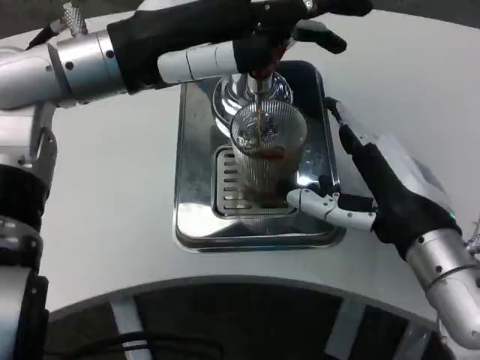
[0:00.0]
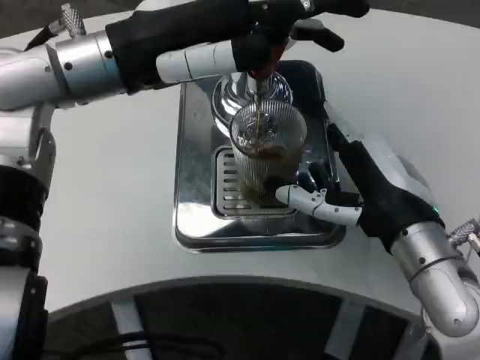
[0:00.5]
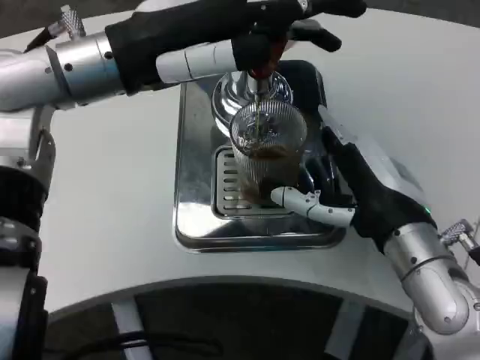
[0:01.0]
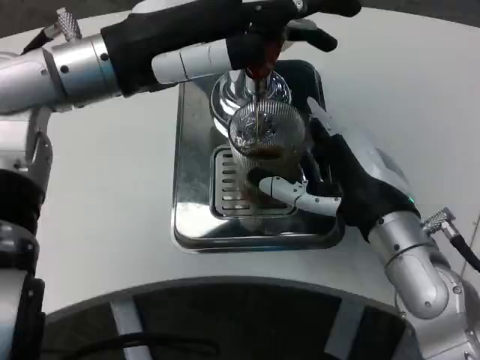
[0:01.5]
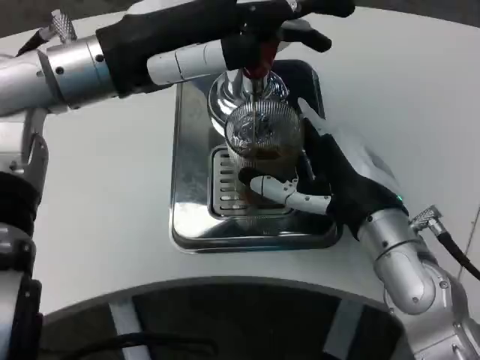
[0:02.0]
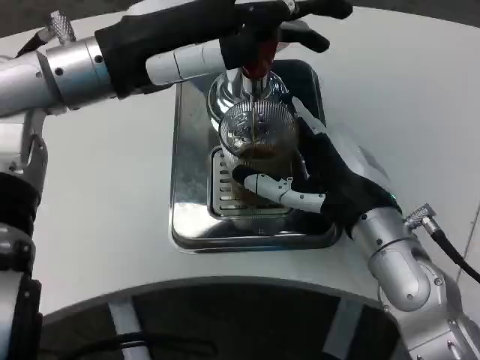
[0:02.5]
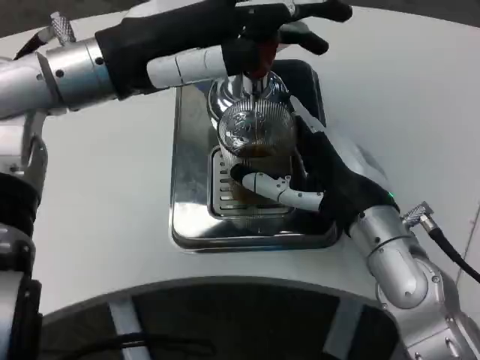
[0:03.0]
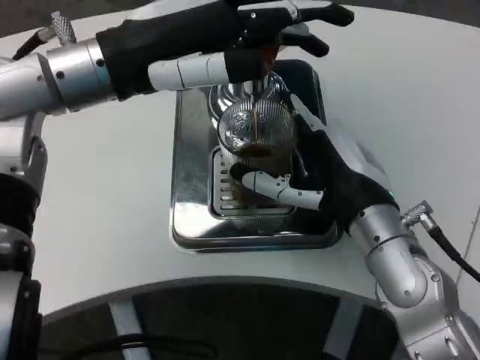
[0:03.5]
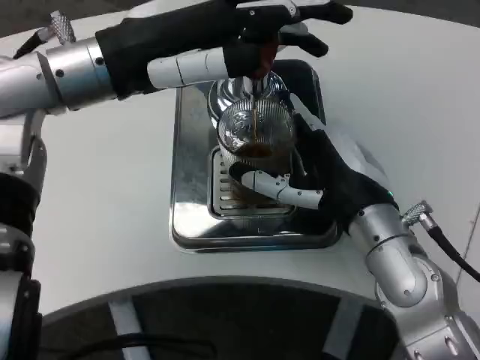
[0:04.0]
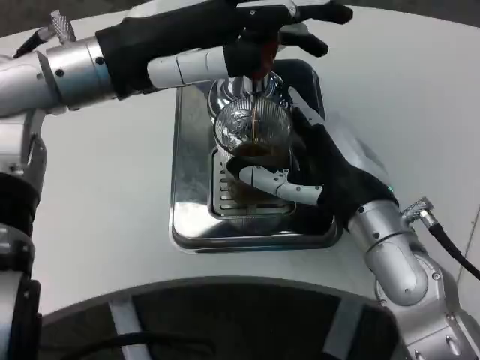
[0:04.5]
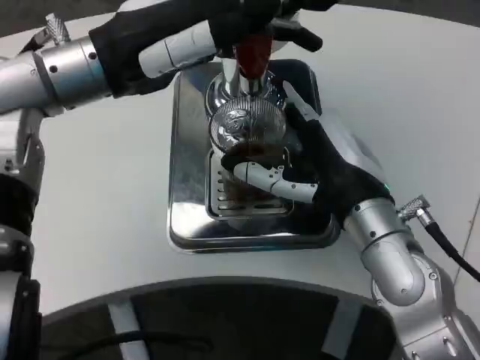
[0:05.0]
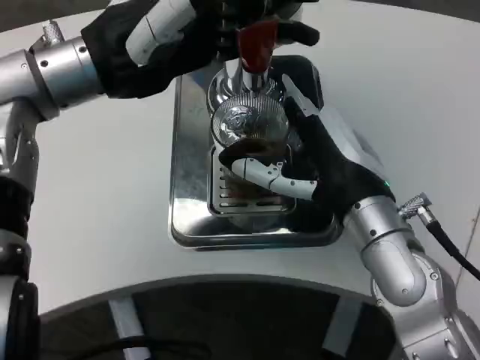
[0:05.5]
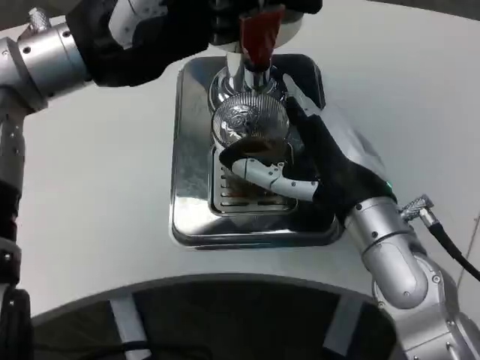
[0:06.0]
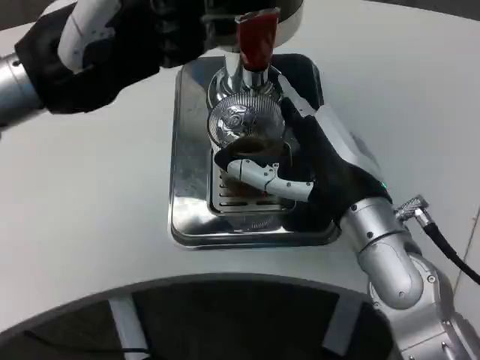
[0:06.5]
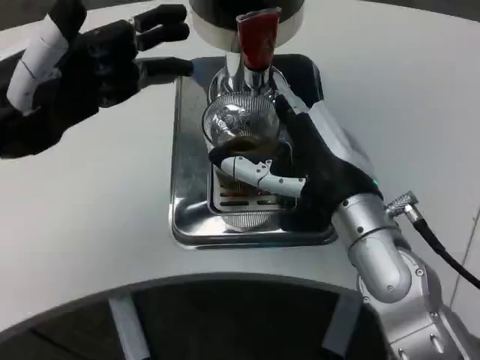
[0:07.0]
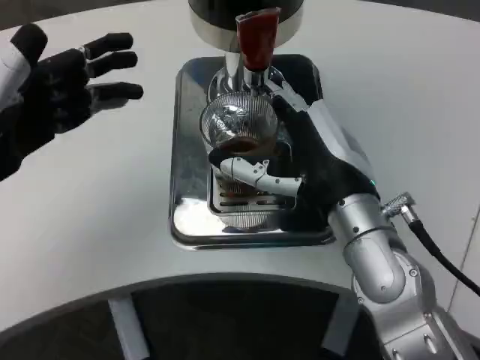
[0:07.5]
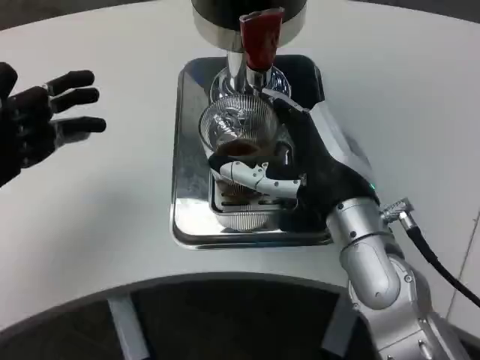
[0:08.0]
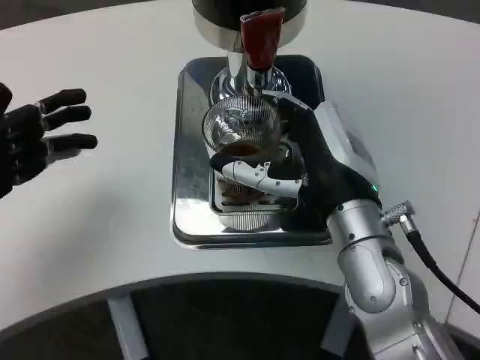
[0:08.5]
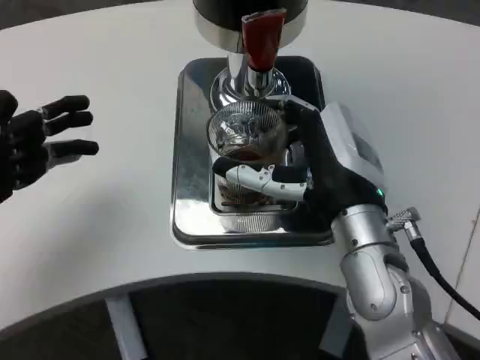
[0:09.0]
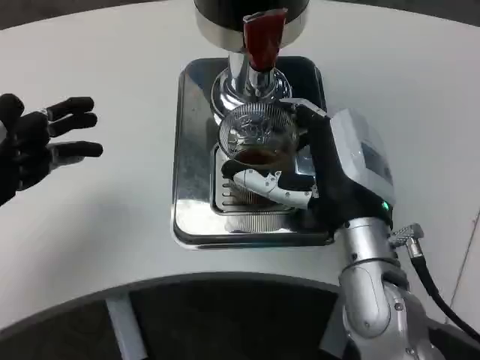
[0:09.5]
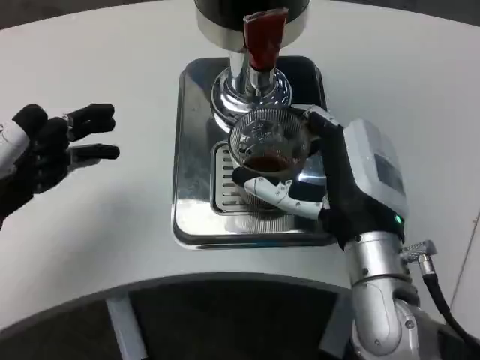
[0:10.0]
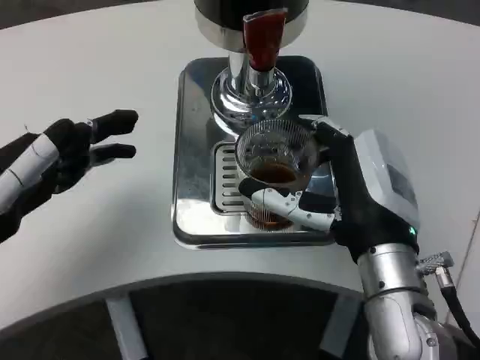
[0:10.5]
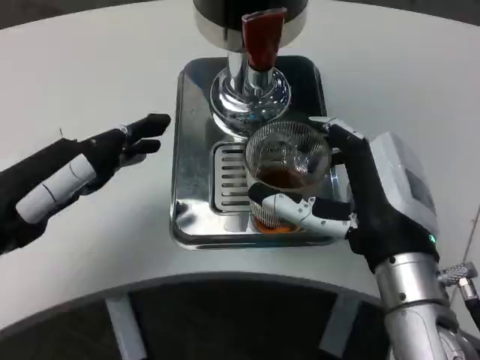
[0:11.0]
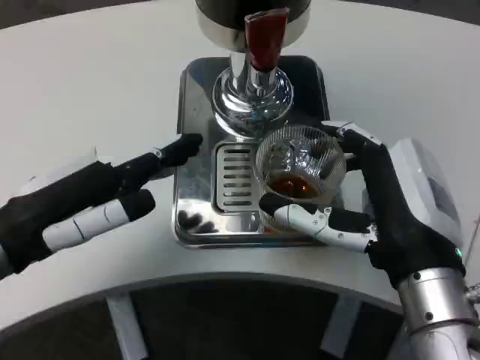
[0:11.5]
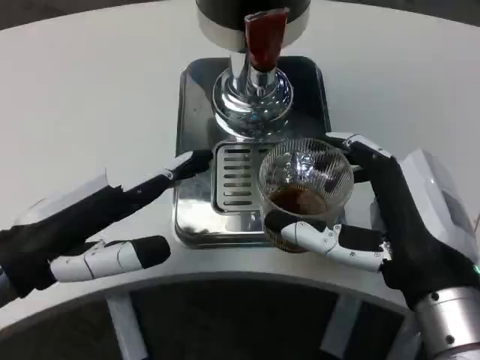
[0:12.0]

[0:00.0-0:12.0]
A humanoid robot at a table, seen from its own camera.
Task of the whole recording: Grasp the cup under the faucet to collect the drink, then remove the cup.
0:02.0 to 0:04.0: Both hands stay about where they are.
0:06.0 to 0:08.0: The left hand moves to the left, downward and backward, about 20 cm.
0:10.0 to 0:12.0: The right hand is displaced backward by some 10 cm, while the left hand is displaced to the right by approximately 5 cm.

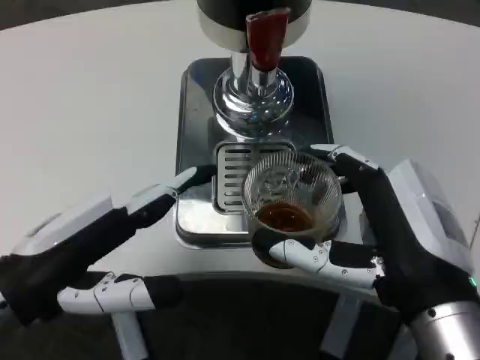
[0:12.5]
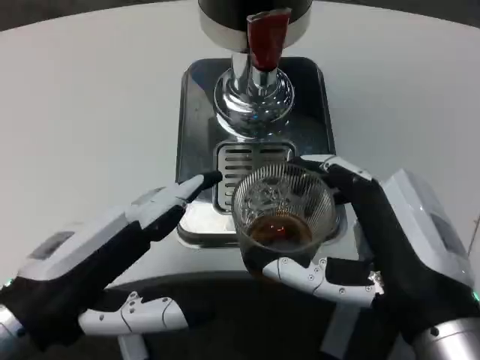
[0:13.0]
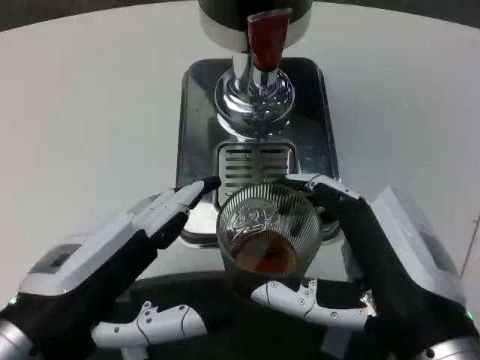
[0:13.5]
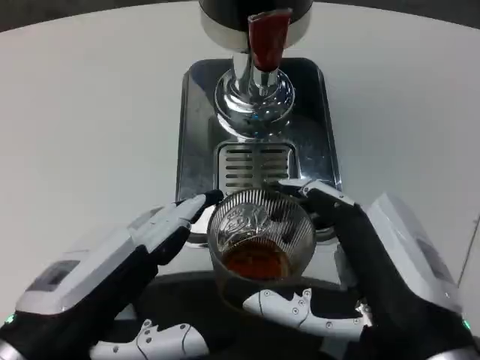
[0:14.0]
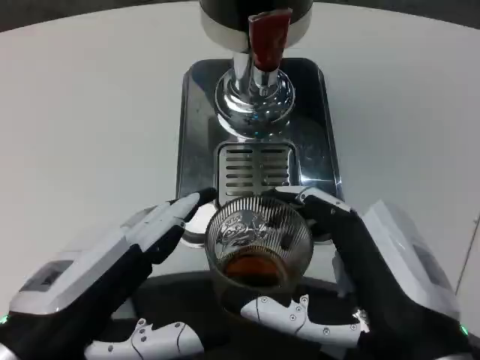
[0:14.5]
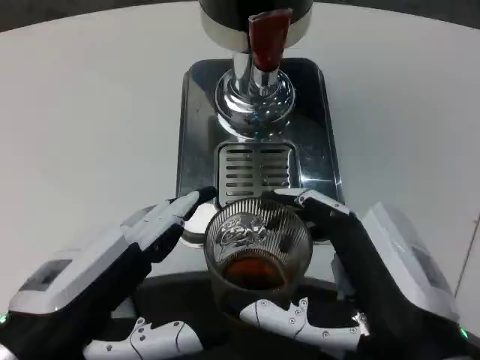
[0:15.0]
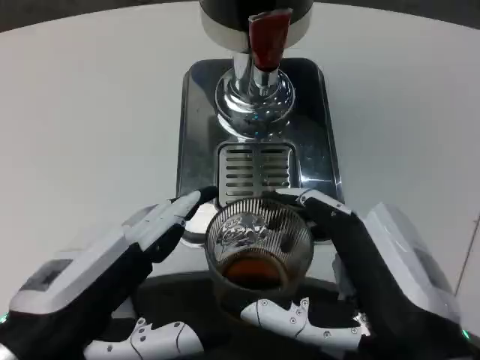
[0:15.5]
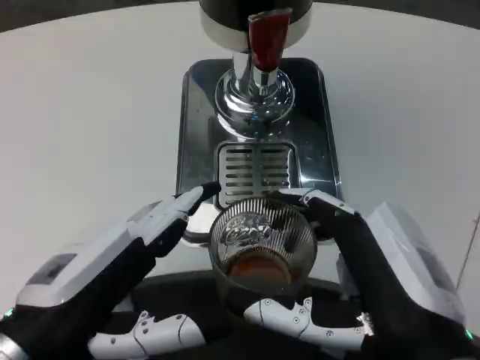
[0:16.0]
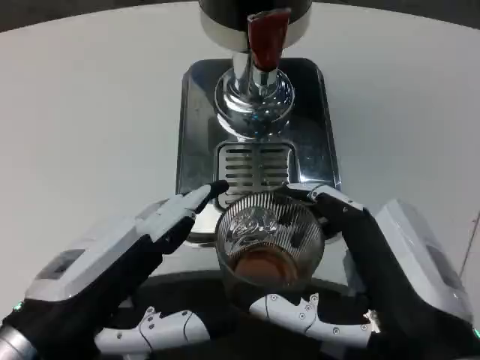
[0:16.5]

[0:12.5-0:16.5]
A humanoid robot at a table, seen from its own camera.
Task of the whole recording: Grasp the cup under the faucet to collect the drink, then remove the cup.
0:12.5 to 0:14.5: The left hand moves backward, roughly 5 cm.
0:14.5 to 0:16.5: Neither hand changes place.

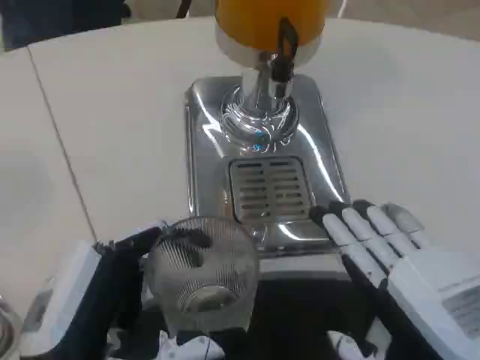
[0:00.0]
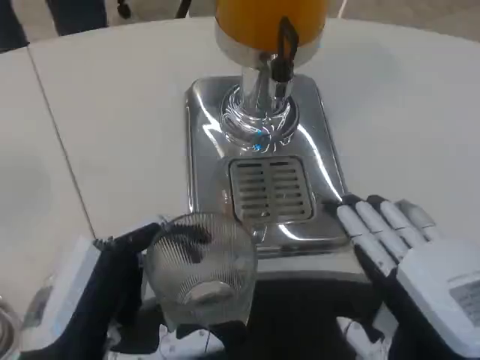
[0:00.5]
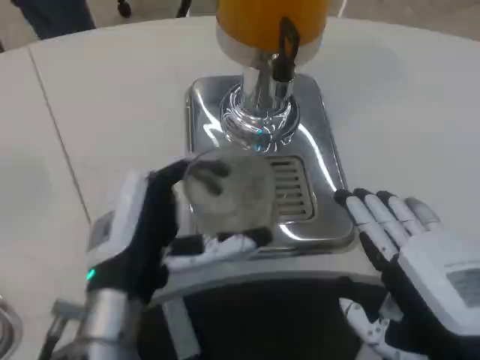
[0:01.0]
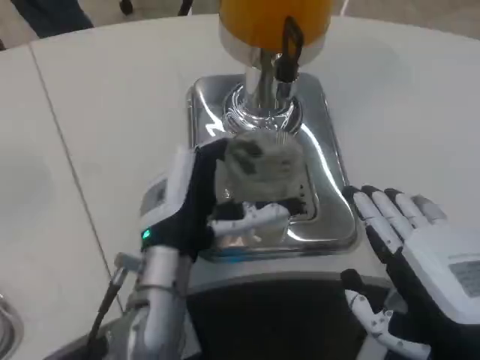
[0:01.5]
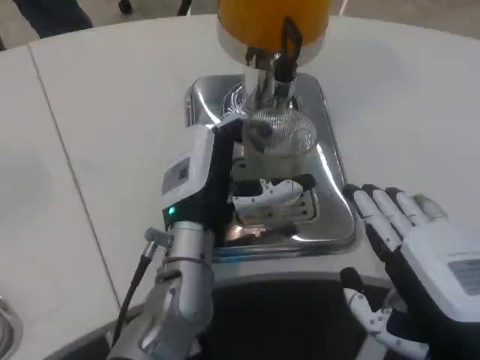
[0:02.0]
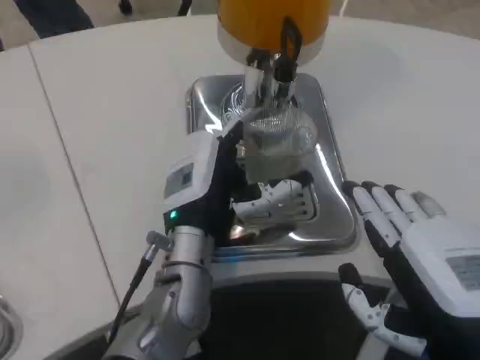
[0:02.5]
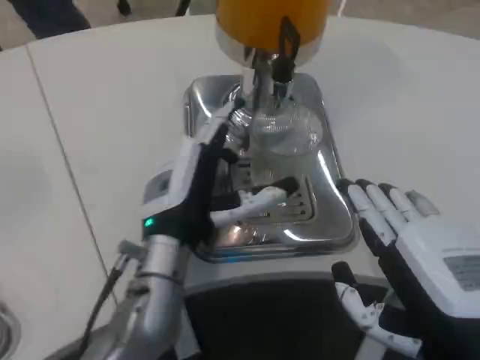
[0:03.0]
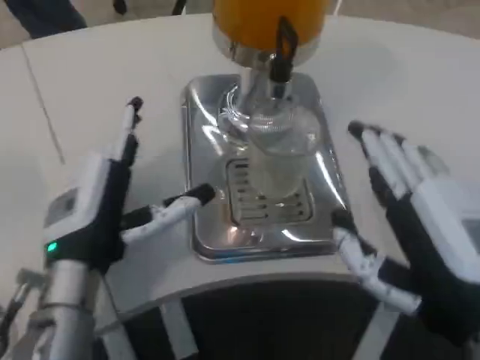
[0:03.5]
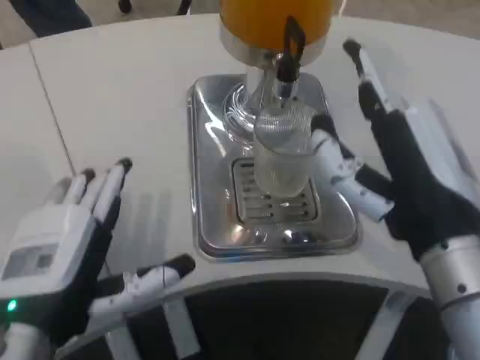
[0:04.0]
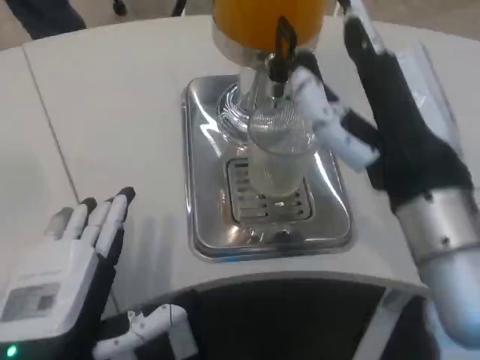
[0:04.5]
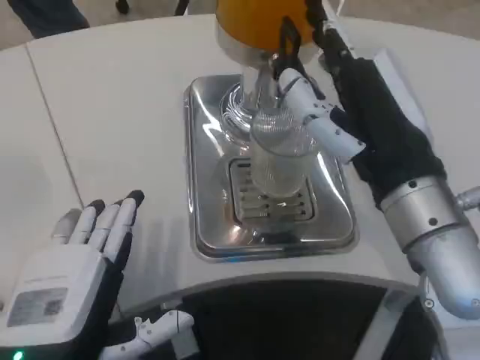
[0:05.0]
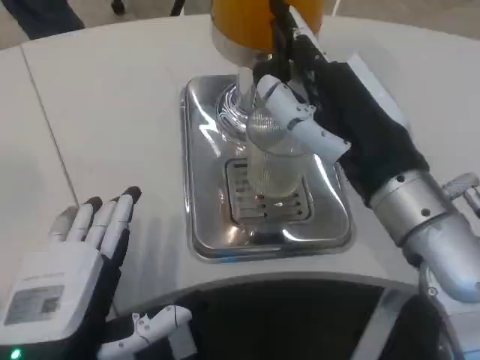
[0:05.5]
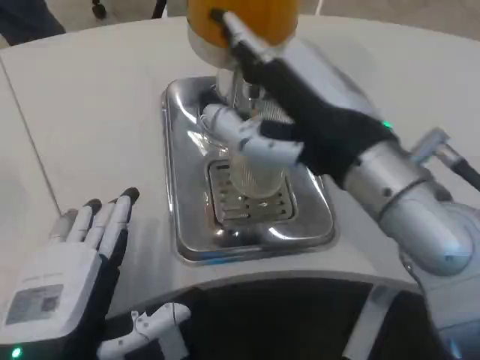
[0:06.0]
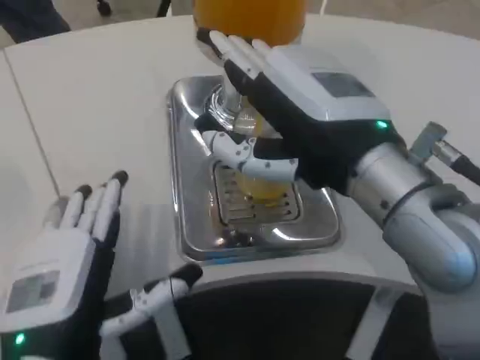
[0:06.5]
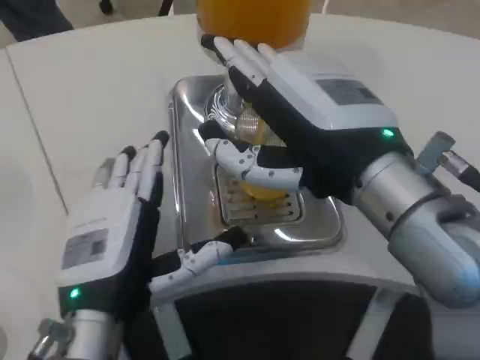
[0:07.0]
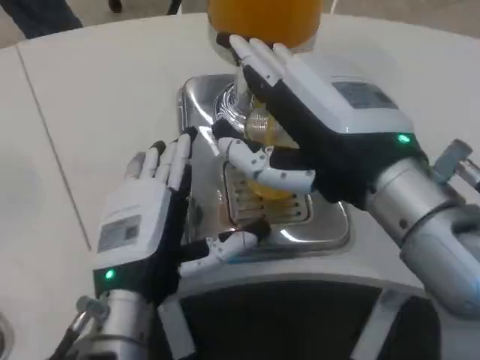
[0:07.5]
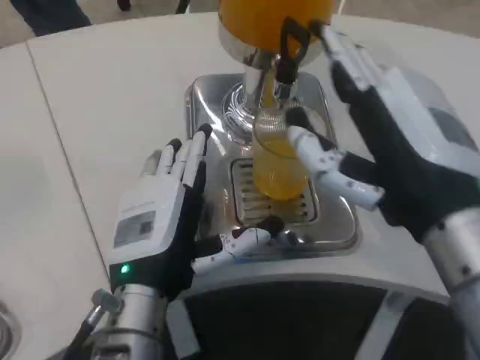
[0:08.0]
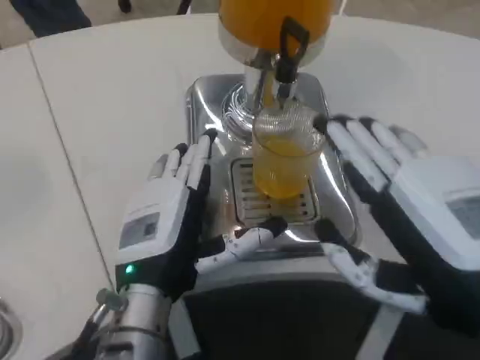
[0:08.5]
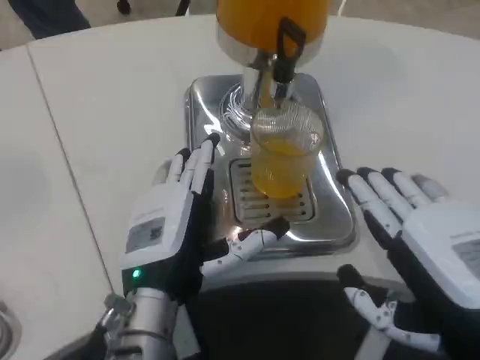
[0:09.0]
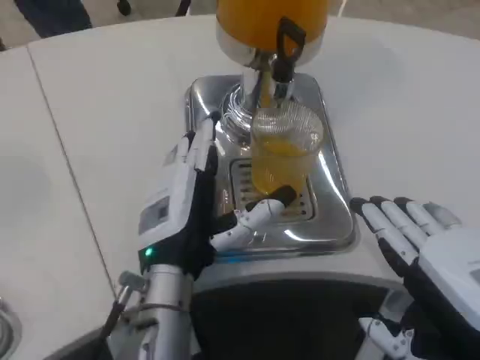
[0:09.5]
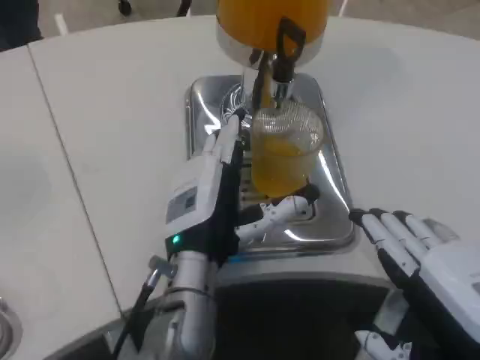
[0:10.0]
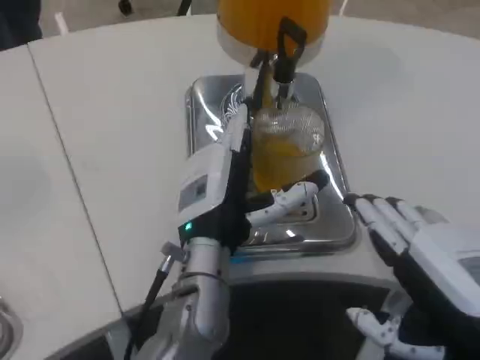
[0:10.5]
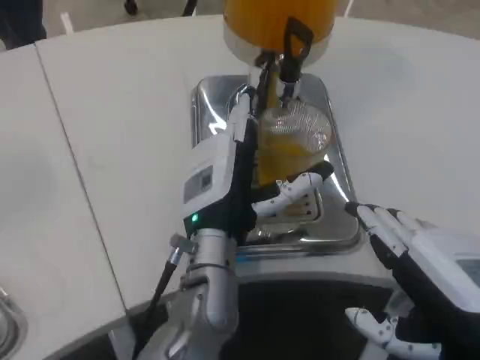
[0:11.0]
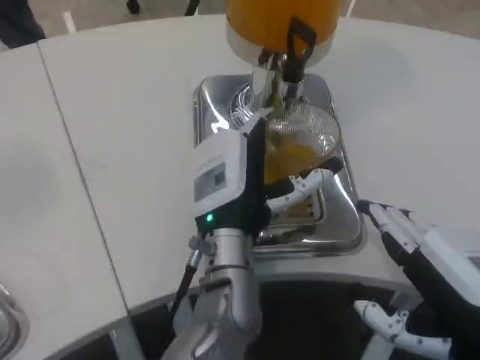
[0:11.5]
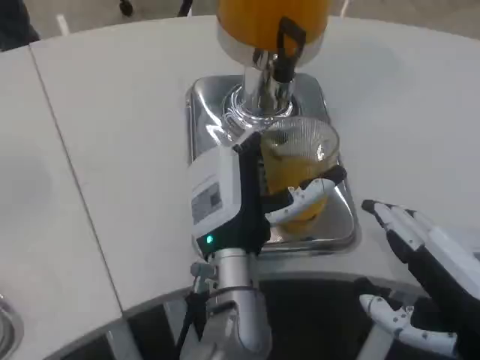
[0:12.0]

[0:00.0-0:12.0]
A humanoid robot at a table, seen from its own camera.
Task of the whole recording: Grasp the cup under the faucet to collect the drink, then remove the cup.
0:00.0 to 0:02.0: The left hand heads forward and to the right, covering about 20 cm.
0:02.0 to 0:04.0: The right hand heads forward and upward, covering about 5 cm. Meanwhile the left hand travels backward and to the left by approximately 20 cm.
0:04.0 to 0:06.0: The right hand travels upward by about 5 cm.
0:06.0 to 0:08.0: The right hand goes about 5 cm backward; the left hand goes roughly 10 cm forward and to the right.
0:08.0 to 0:10.0: The right hand moves backward, downward and to the right, about 10 cm; the left hand moves some 5 cm.
0:10.0 to 0:12.0: The left hand heads to the right, covering approximately 5 cm.
